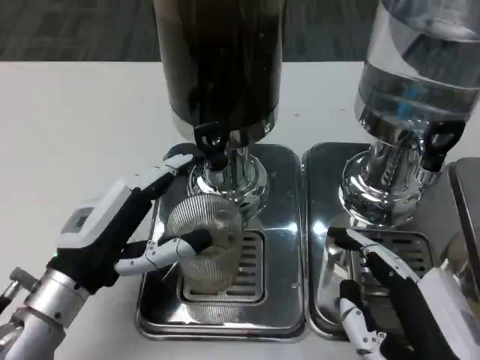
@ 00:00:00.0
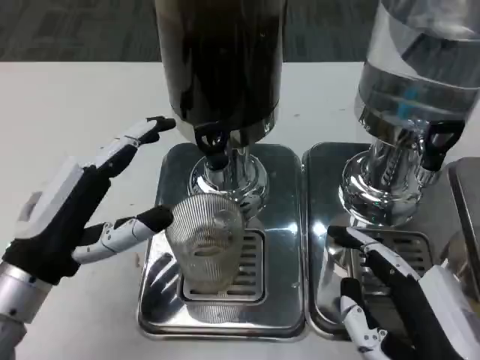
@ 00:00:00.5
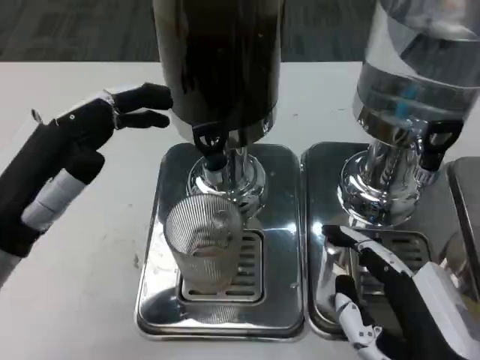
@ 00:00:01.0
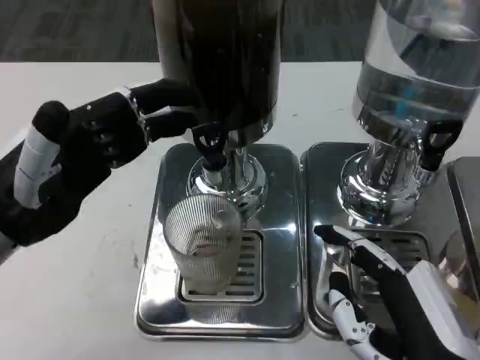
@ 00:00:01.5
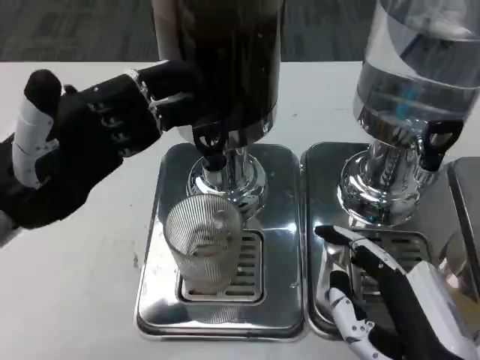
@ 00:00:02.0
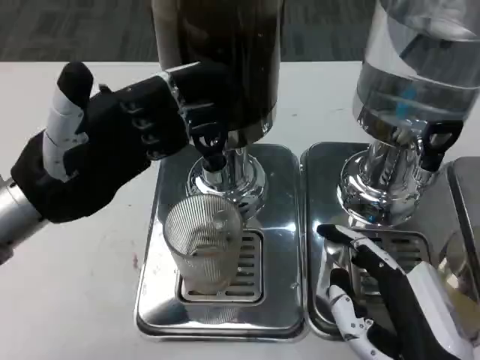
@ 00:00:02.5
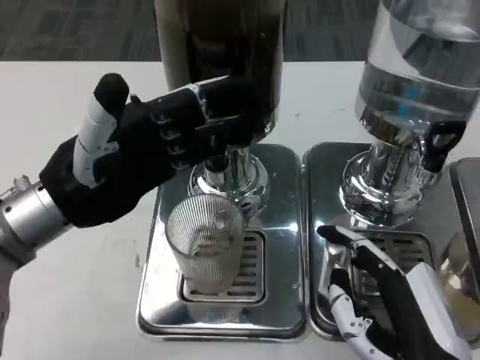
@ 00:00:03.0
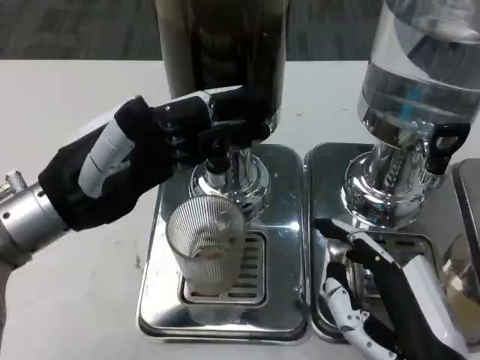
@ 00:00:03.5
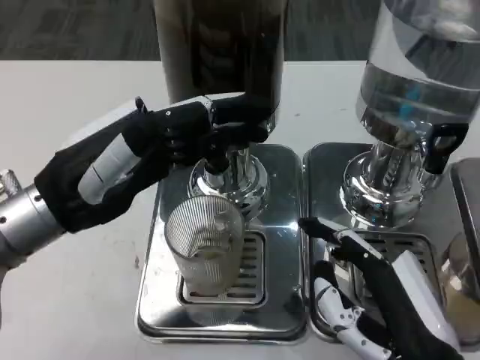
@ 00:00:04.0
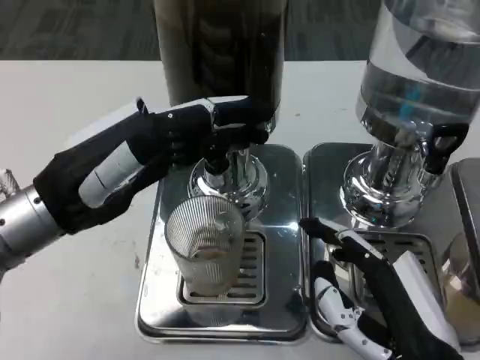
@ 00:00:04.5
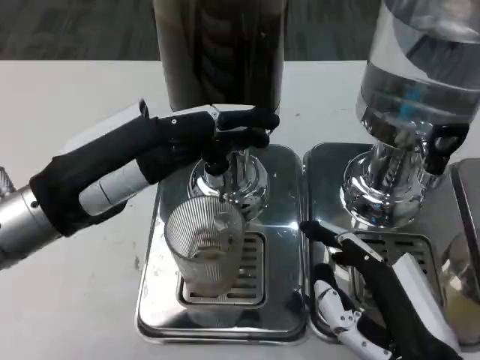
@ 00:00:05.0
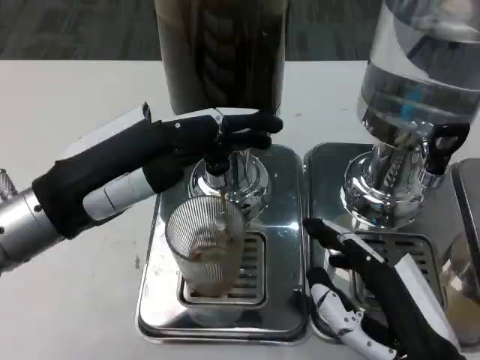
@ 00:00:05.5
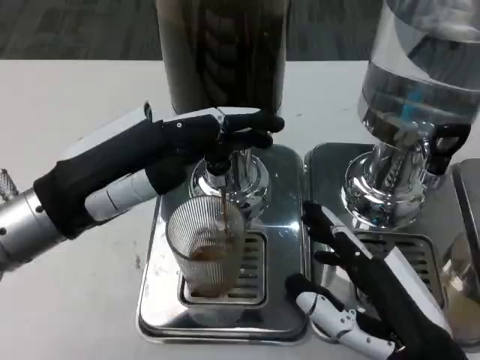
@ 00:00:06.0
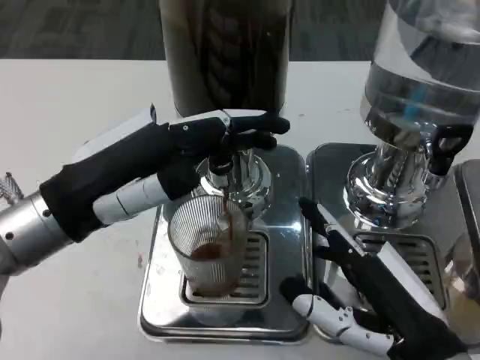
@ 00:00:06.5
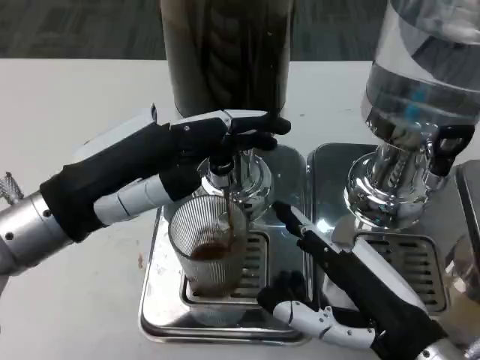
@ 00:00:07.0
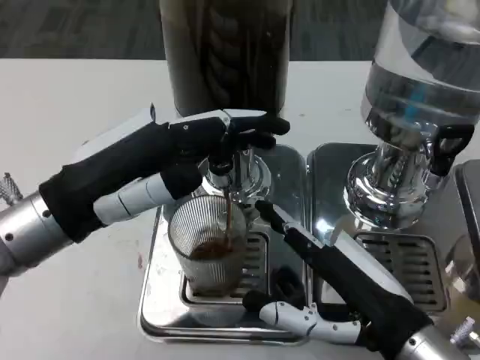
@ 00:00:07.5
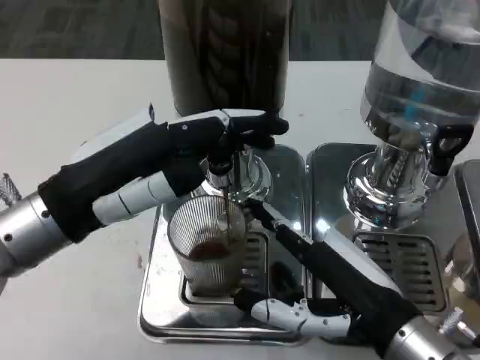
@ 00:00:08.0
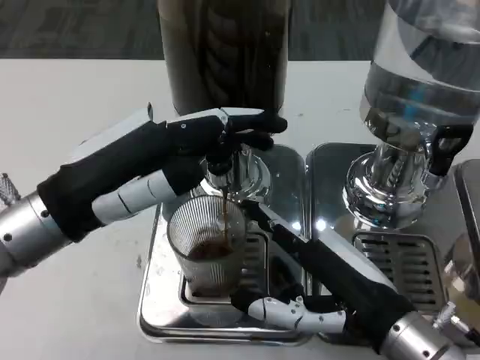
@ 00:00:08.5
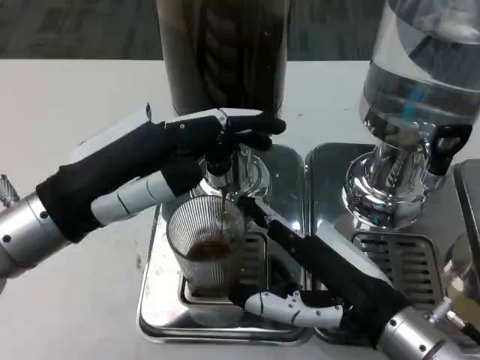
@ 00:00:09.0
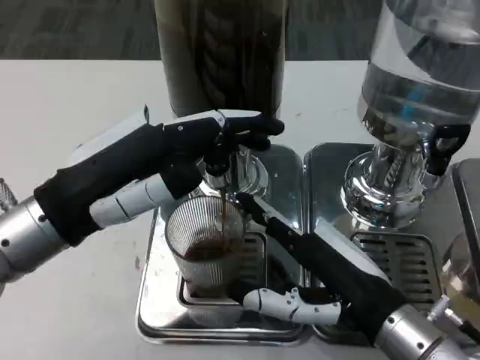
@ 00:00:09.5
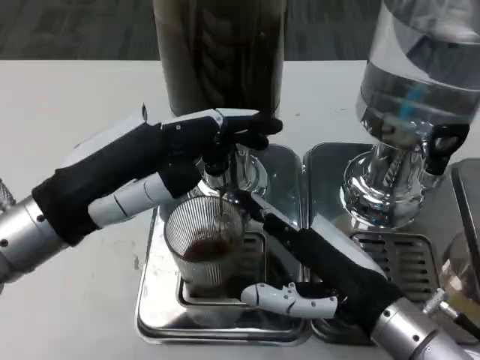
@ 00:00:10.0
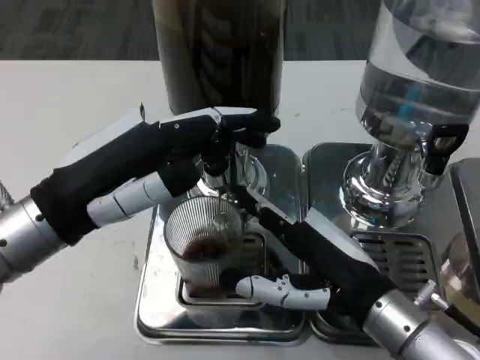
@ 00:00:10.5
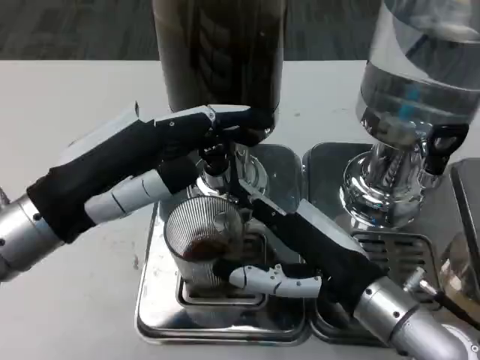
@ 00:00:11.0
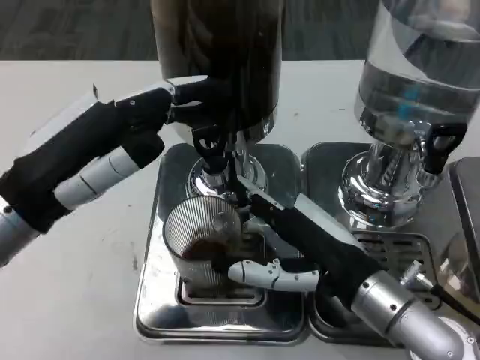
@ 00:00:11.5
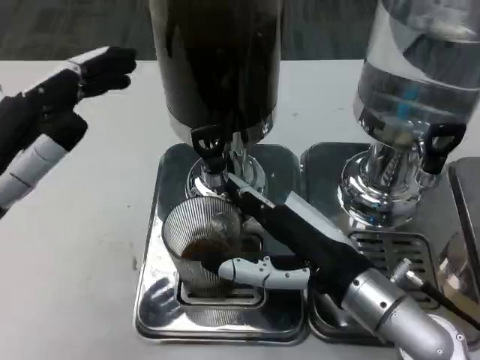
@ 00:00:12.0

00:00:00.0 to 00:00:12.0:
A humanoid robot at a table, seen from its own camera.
Task of the whole recording: Grasp the cup under the faucet to collect the drink, then remove the cup.
00:00:00.0 to 00:00:02.0: The left hand shifts about 10 cm upward.
00:00:04.0 to 00:00:06.0: The hands move only a little.
00:00:10.0 to 00:00:12.0: The left hand ends up approximately 5 cm from where it was.

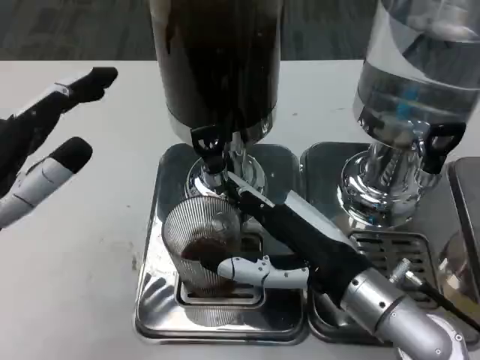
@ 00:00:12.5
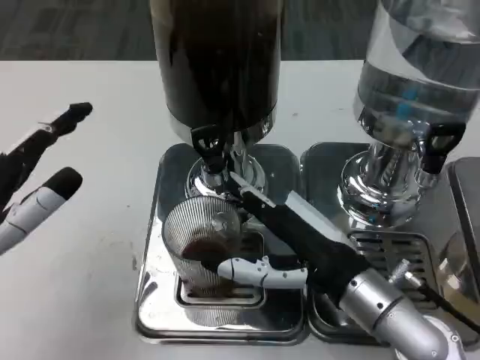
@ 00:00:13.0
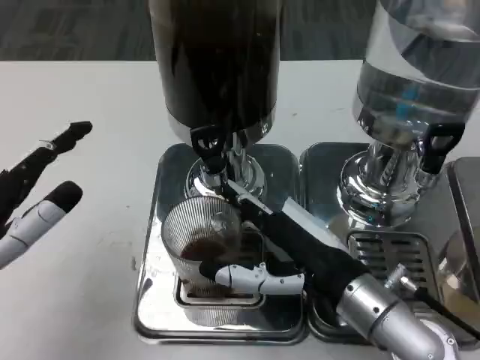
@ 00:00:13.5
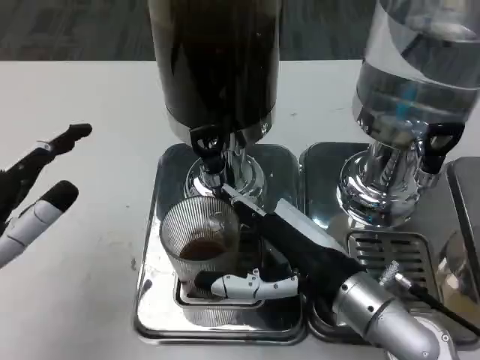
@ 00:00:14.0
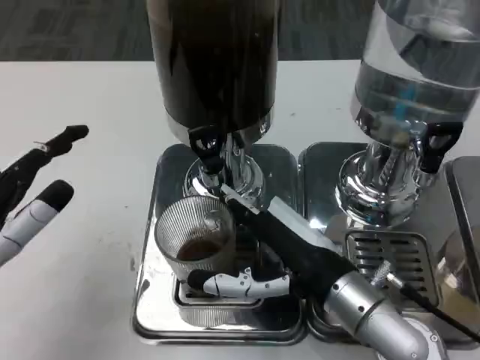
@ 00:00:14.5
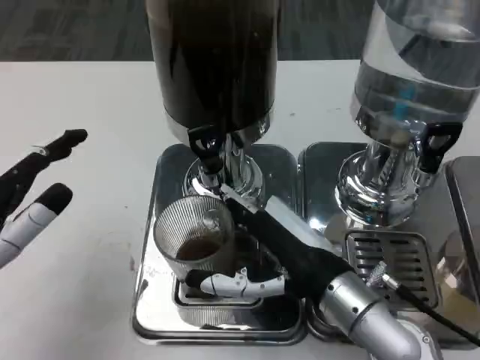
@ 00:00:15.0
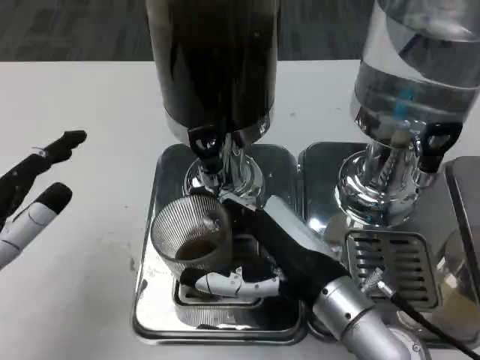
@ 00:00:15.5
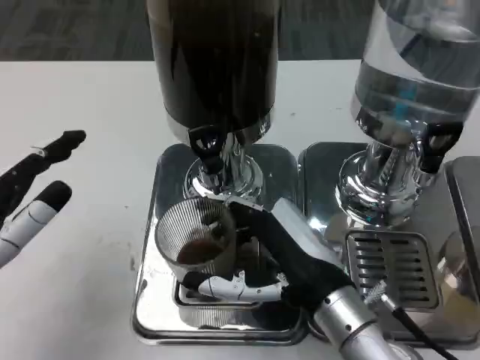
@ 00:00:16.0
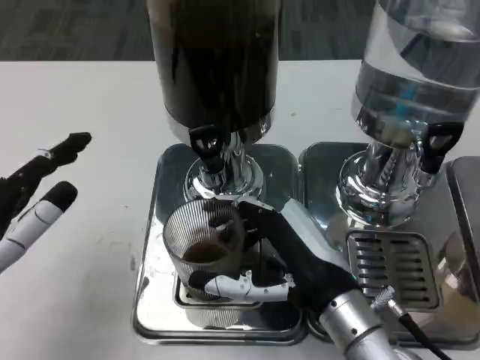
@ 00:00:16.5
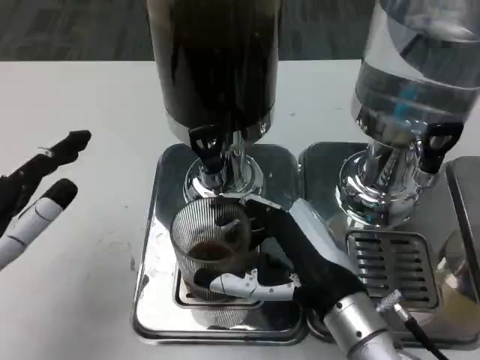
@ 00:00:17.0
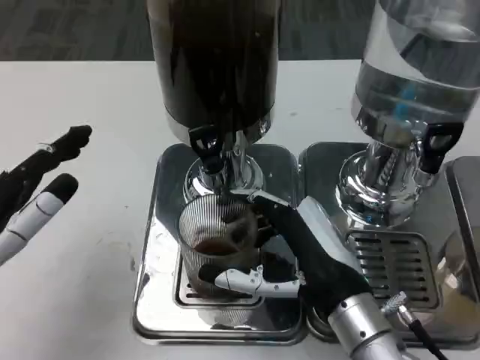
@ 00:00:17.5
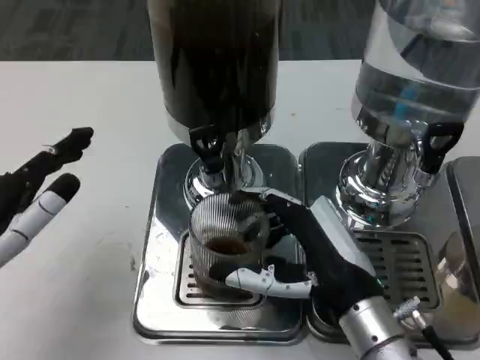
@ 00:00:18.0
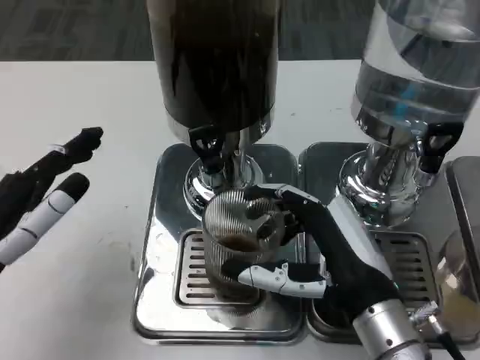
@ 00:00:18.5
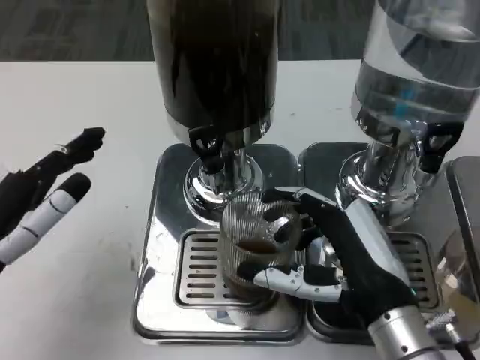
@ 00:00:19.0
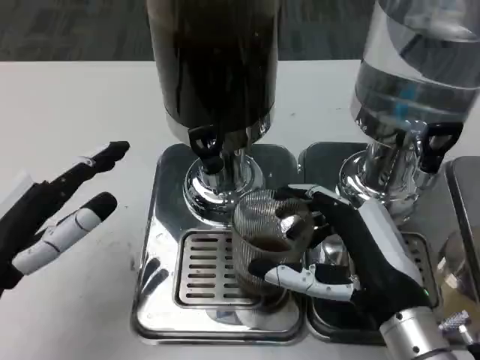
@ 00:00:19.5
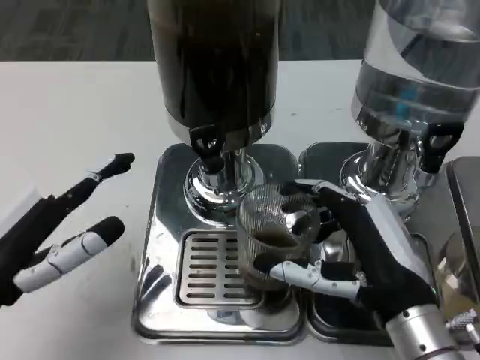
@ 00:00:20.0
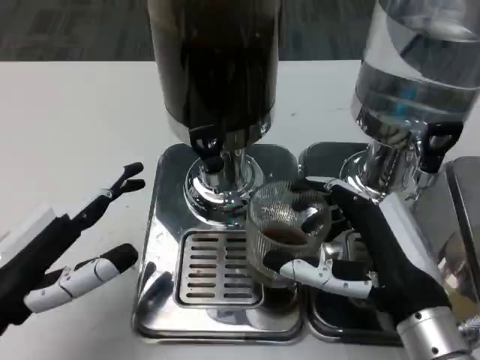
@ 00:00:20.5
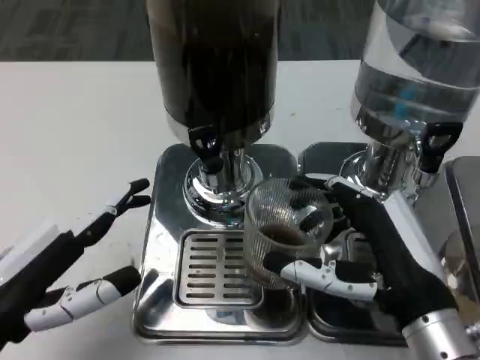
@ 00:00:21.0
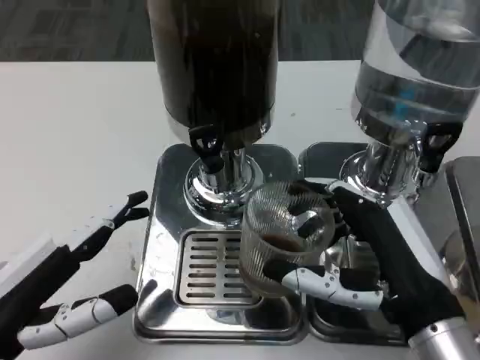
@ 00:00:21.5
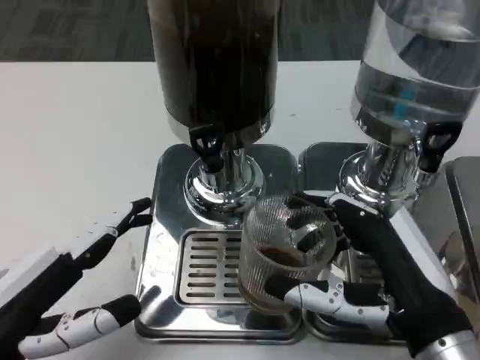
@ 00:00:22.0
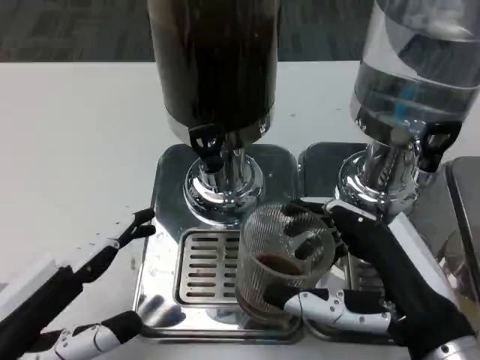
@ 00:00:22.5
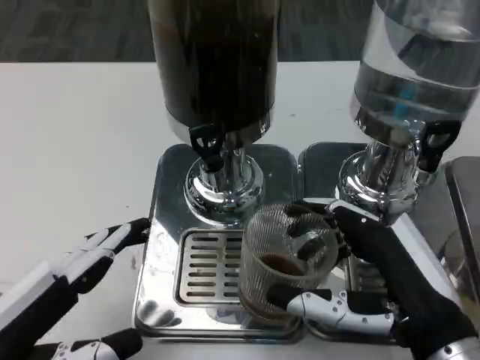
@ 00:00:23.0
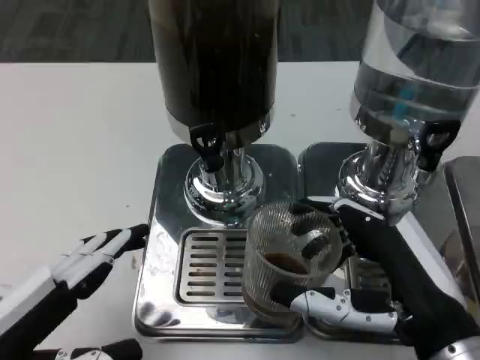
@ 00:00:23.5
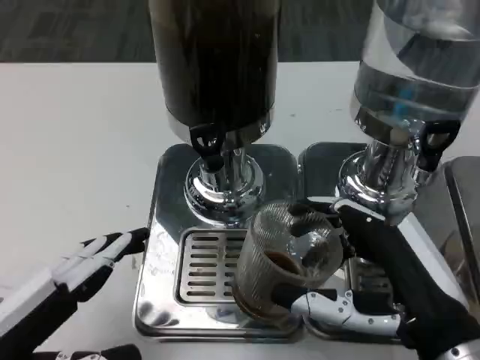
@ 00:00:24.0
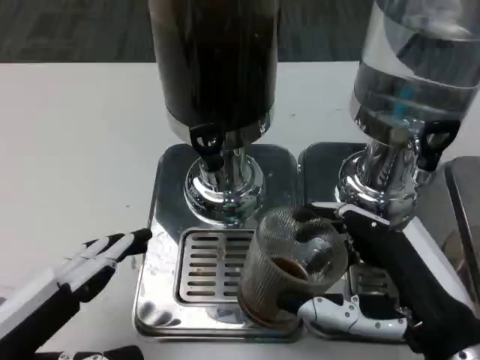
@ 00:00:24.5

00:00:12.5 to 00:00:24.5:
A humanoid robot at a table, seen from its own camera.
Task of the whole recording: Grasp the cup under the faucet to collect the drink, then remove the cup.
00:00:14.5 to 00:00:16.5: The hands move only a little.
00:00:16.5 to 00:00:18.5: The hands stay close to where they were, moving slightly.
00:00:22.5 to 00:00:24.5: The hands move only a little.
